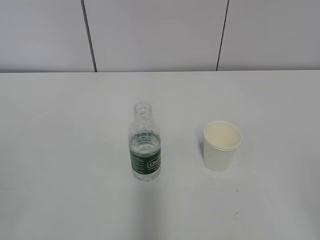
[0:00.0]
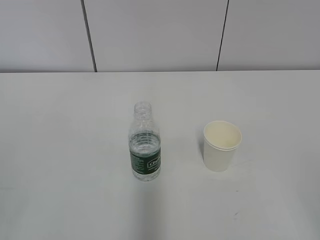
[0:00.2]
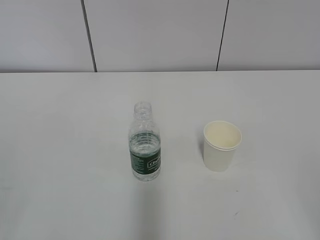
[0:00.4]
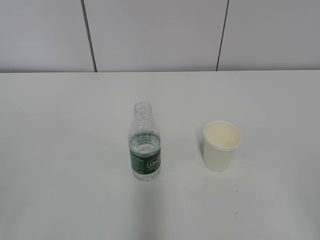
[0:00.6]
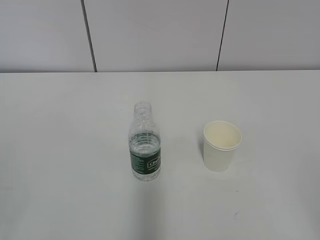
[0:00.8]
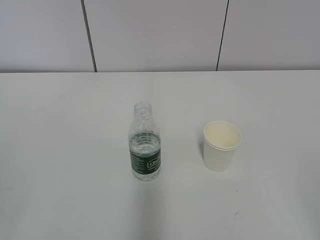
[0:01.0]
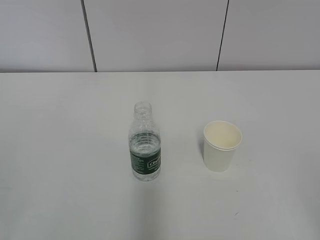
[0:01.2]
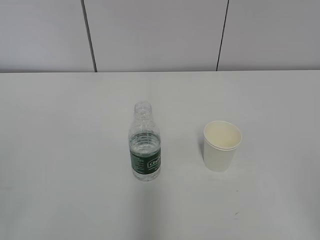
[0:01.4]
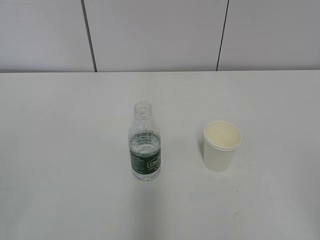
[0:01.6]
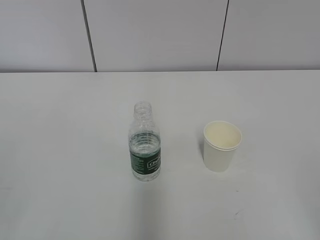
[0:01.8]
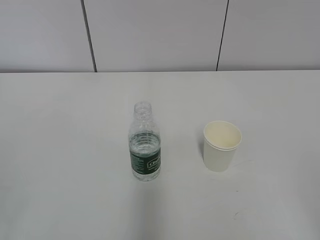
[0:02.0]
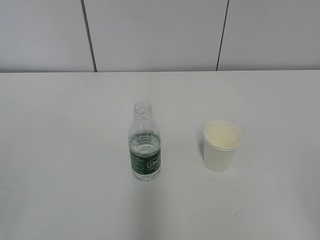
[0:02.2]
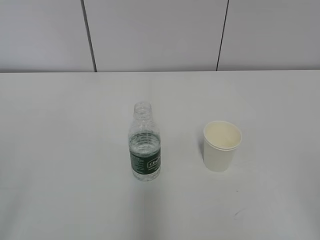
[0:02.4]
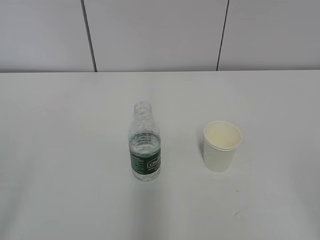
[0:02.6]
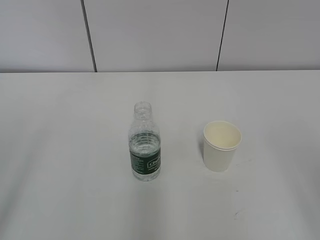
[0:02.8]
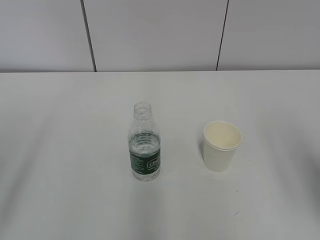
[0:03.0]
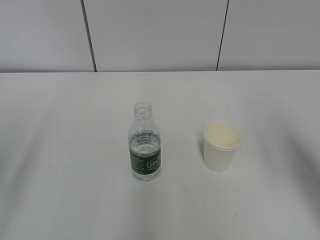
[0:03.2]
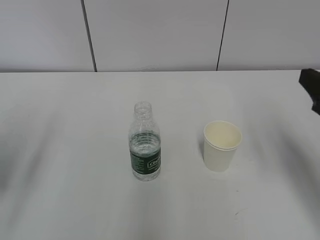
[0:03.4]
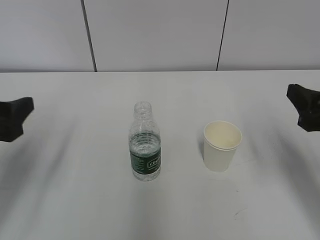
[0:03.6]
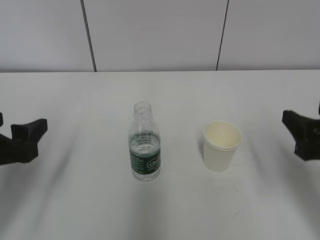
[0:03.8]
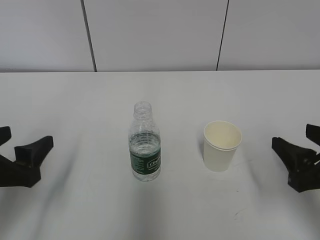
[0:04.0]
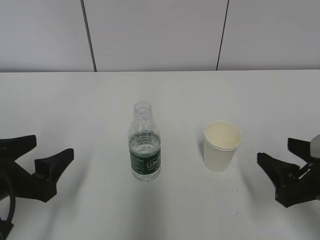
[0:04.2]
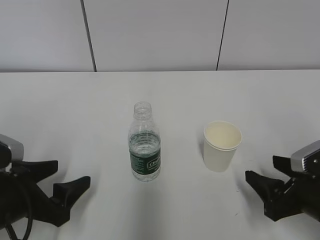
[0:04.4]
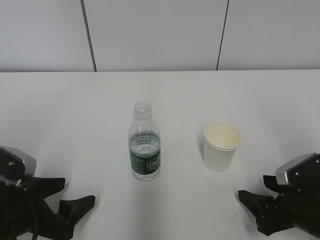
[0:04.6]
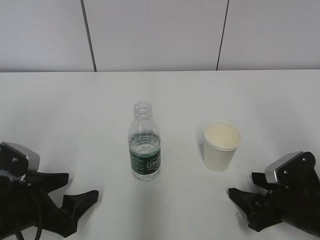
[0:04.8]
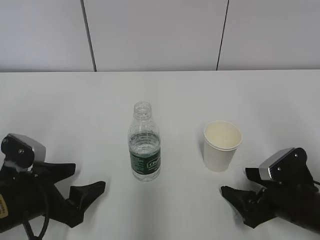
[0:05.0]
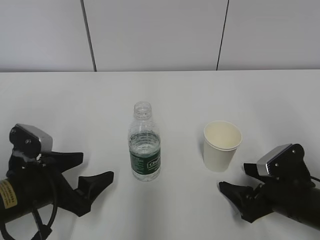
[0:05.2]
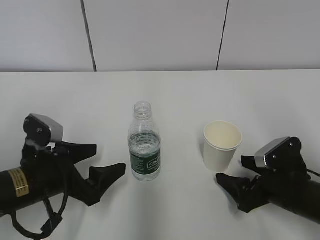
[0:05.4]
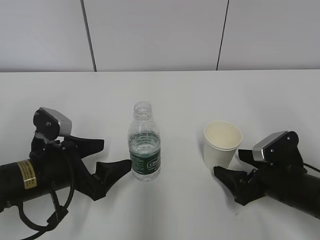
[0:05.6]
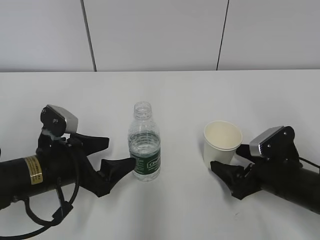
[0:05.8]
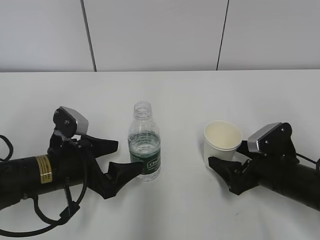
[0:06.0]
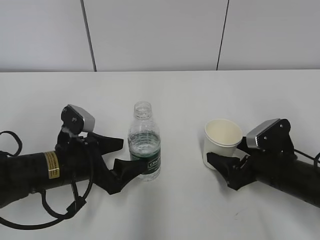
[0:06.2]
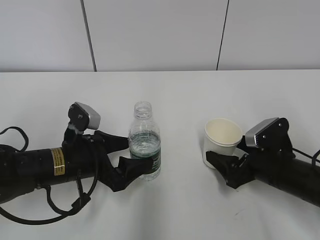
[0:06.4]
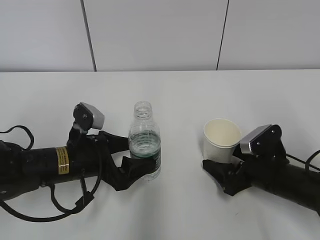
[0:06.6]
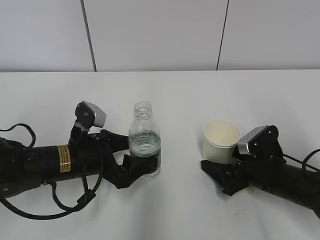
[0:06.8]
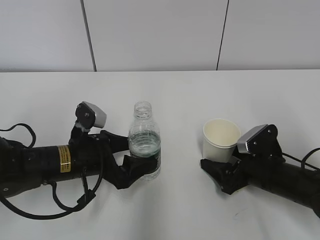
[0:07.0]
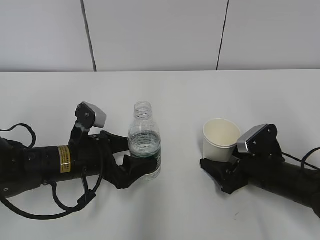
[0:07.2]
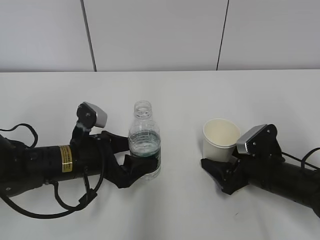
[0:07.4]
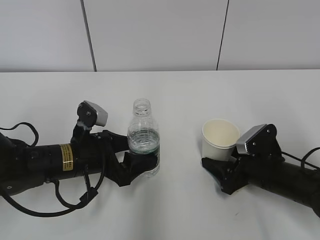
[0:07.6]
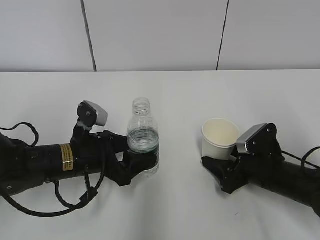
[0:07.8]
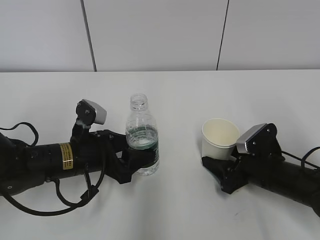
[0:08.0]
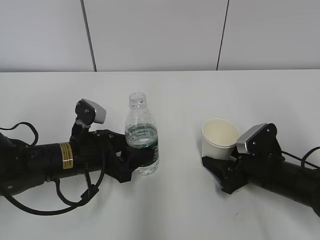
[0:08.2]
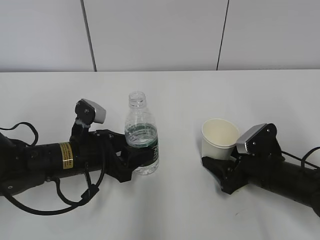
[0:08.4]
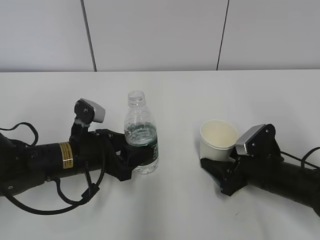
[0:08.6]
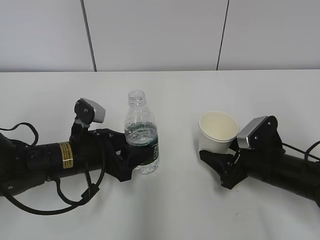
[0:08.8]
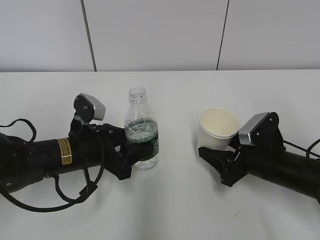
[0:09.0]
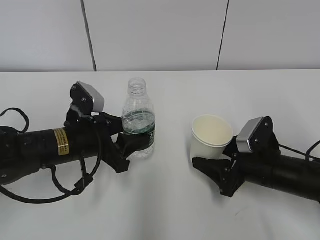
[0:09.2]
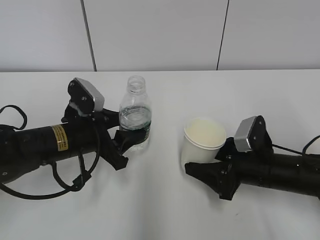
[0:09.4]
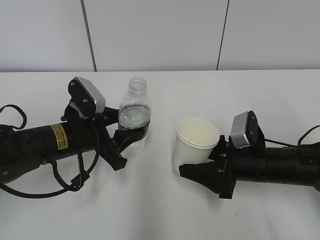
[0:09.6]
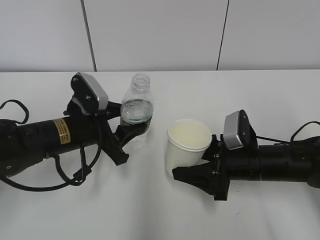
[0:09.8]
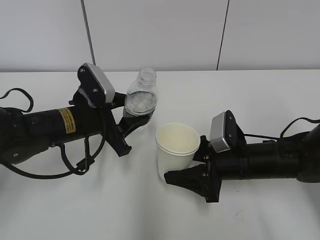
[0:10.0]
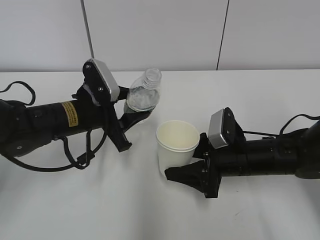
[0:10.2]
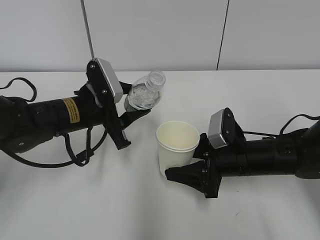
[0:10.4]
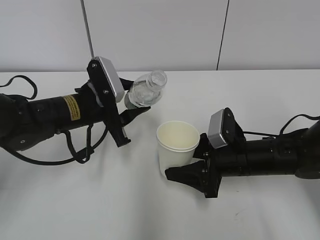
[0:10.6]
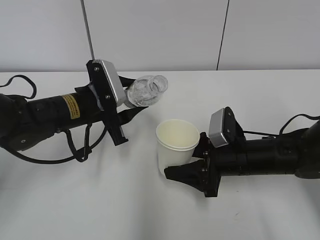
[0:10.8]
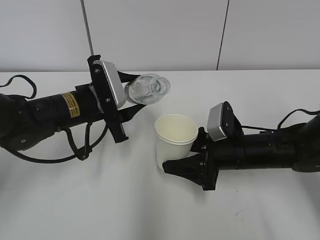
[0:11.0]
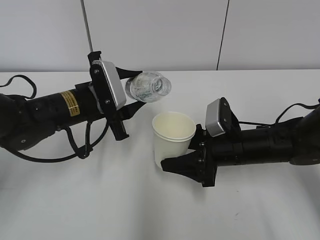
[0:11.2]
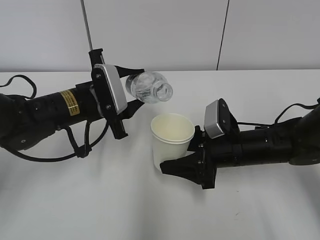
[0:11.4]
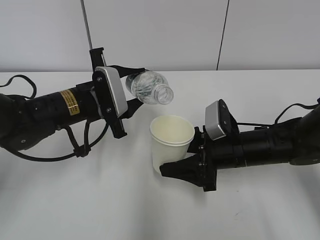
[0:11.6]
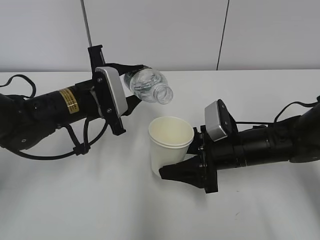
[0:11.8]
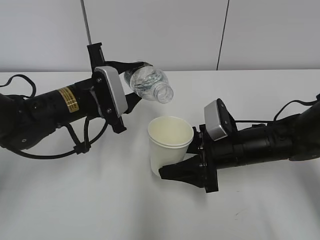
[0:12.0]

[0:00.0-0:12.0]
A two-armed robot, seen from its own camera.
Step, 0:00.0 to 0:06.2: Grab the paper cup with the right hand.
Step, 0:06.4 to 0:06.8: Grab the water bottle with the left hand.
Step, 0:07.0 to 0:10.8: Lift the paper cup with the right hand.
0:01.6 to 0:03.0: The right gripper is displaced forward by some 15 cm.
0:03.0 to 0:04.4: The right gripper goes about 20 cm downward. Meanwhile the left gripper shifts some 20 cm downward, forward and to the right.
0:04.4 to 0:06.0: The right gripper moves forward, approximately 10 cm, and opens its fingers; the left gripper moves forward and to the right, some 10 cm.
0:06.0 to 0:07.6: The right gripper closes.
0:07.6 to 0:09.0: The left gripper closes its fingers.
0:09.0 to 0:10.4: The left gripper ends up approximately 5 cm from where it was; the right gripper shifts by approximately 5 cm.

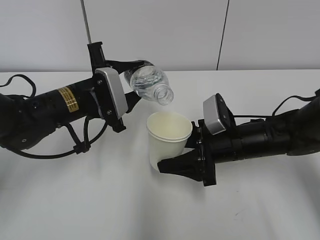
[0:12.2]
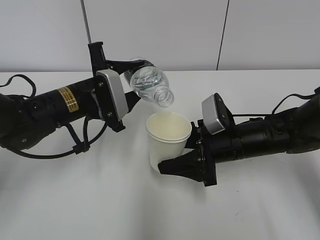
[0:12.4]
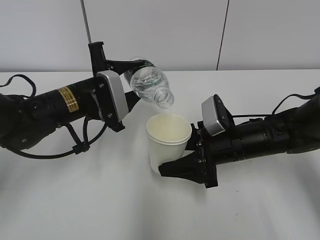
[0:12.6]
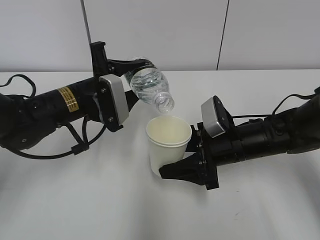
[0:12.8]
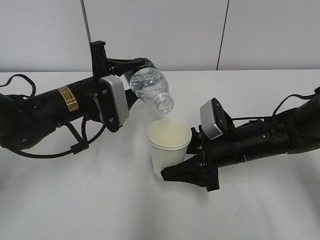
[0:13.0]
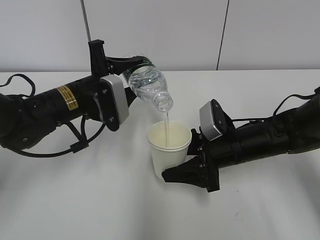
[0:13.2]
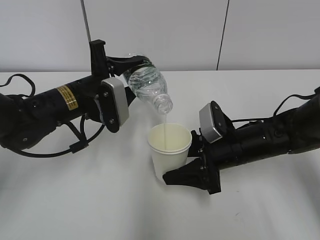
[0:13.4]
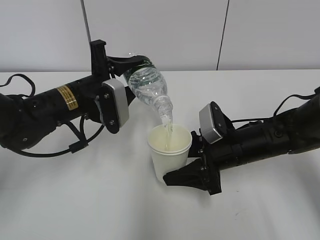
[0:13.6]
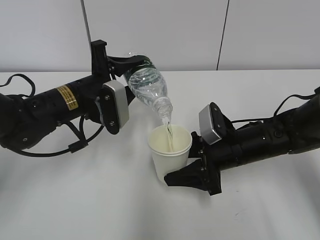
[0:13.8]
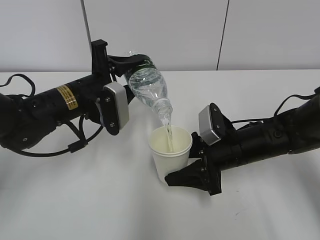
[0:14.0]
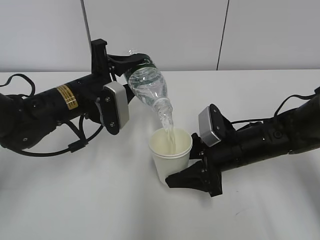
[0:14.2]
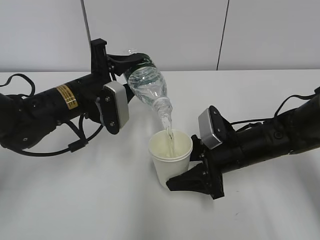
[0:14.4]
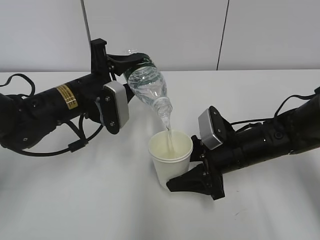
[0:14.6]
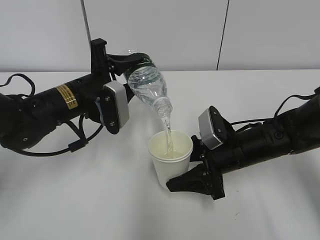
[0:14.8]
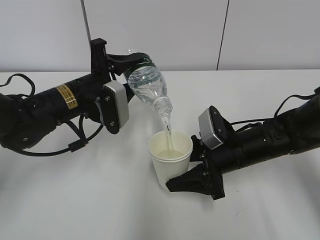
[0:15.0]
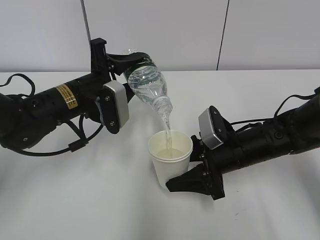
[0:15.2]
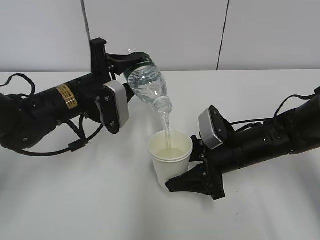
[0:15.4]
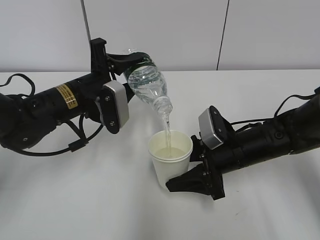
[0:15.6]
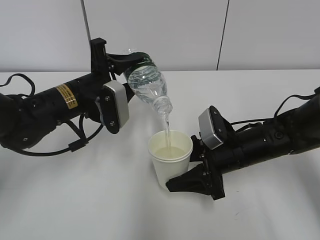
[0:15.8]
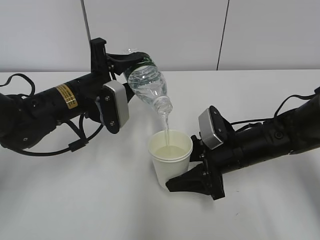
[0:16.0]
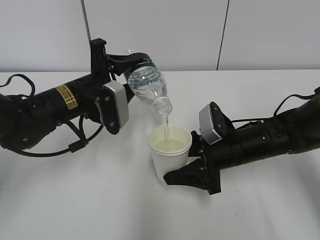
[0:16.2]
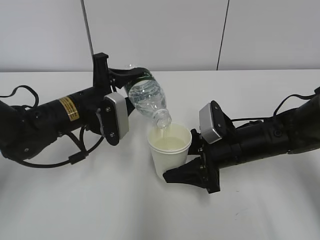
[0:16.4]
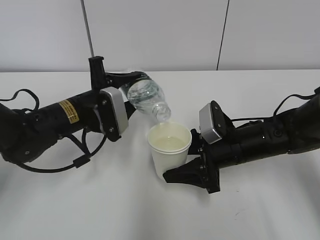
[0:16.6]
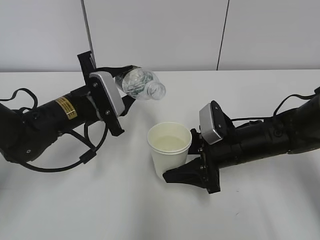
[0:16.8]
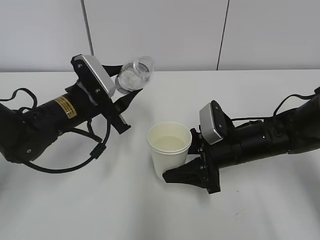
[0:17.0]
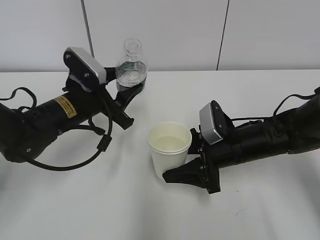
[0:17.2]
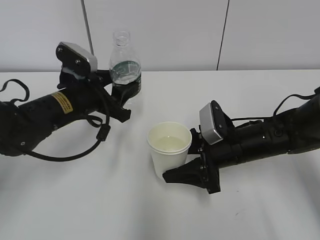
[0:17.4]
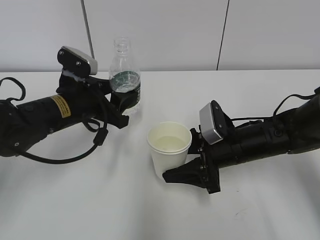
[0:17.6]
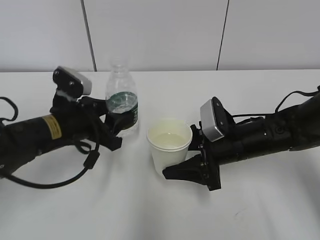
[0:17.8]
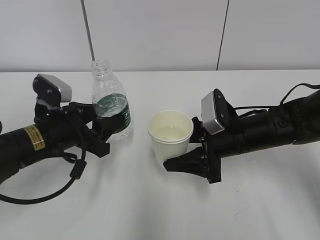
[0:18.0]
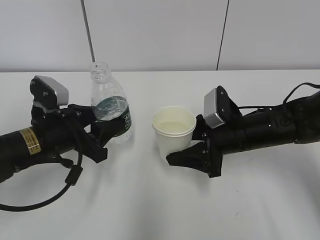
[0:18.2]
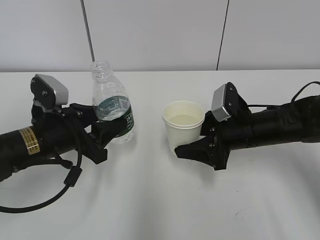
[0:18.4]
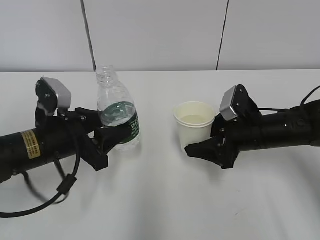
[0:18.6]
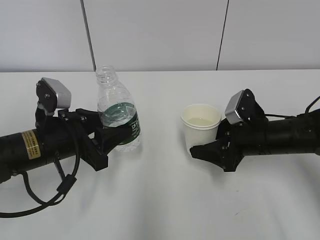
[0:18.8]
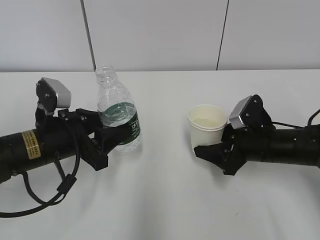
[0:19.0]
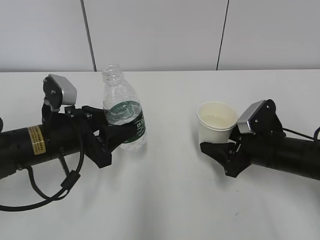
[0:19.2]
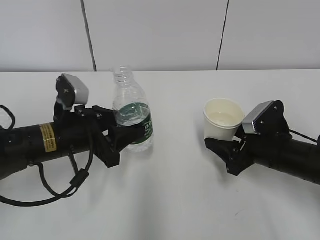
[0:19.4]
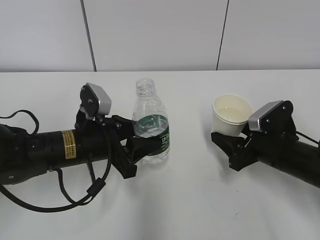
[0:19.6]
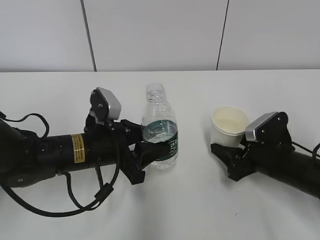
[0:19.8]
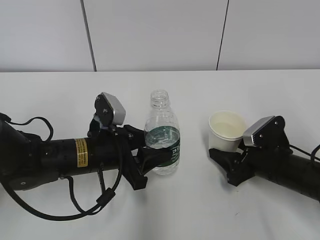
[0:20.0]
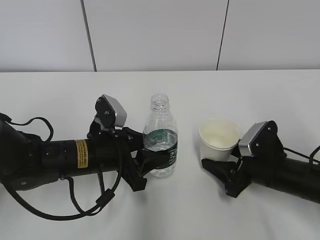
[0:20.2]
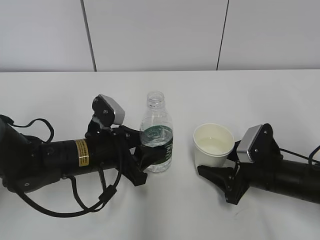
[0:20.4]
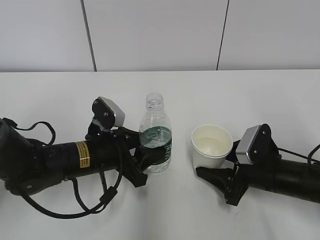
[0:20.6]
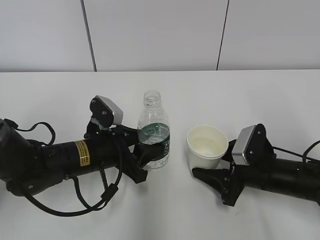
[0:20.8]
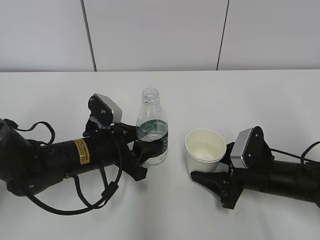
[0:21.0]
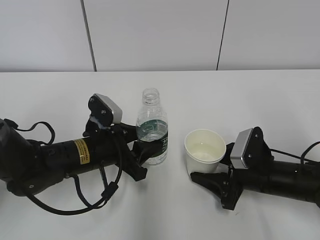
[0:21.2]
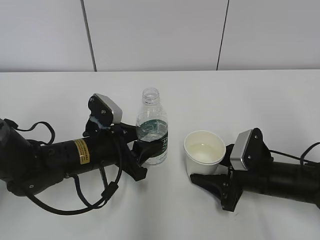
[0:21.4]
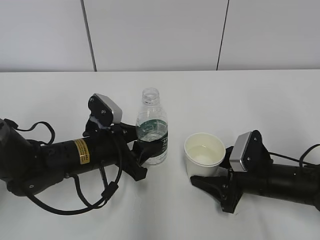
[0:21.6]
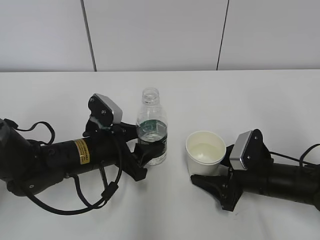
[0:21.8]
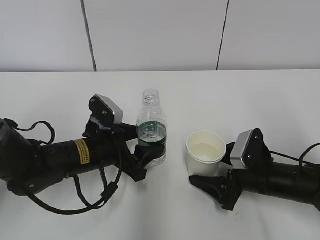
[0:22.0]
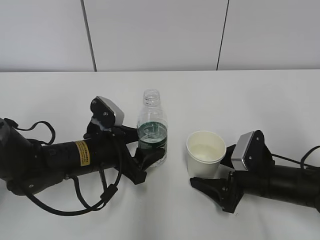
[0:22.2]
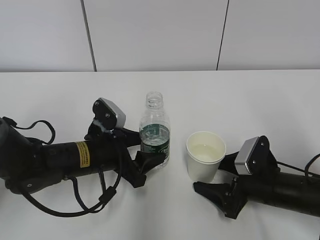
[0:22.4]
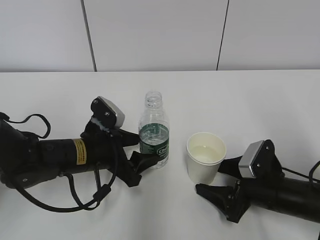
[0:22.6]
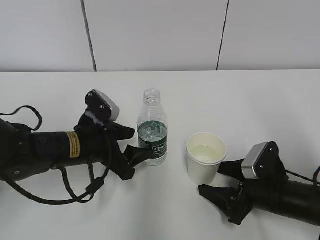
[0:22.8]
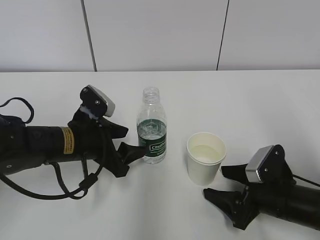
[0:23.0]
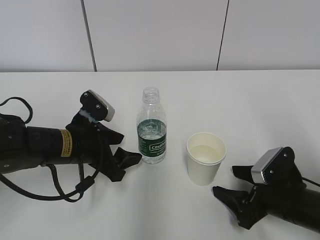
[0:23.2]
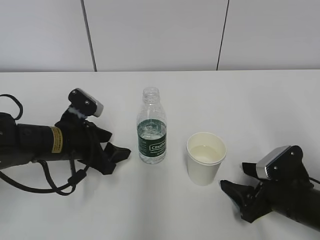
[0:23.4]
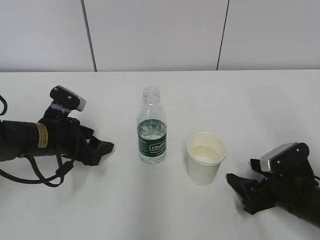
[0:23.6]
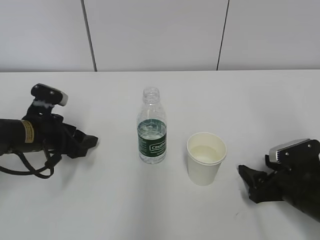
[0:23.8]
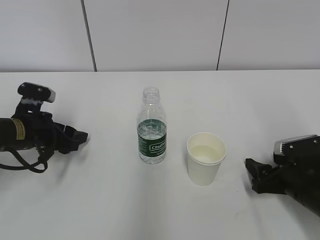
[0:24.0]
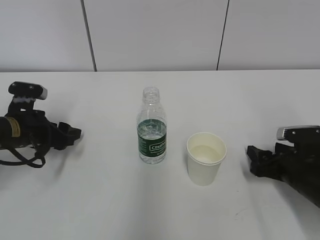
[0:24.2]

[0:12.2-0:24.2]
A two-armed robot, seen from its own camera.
Step, 0:12.2 to 0:13.8: Fill water with the right hand.
Step, 0:12.2 to 0:13.8: Pour water with the left hand.
Step, 0:14.0 to 0:14.4: Collect water with the left hand.
Step, 0:14.6 to 0:18.0: Place the paper cup with the right hand.
Step, 0:18.2 to 0:19.0: Place the water bottle with the left hand.
0:12.2 to 0:13.8: The grippers make only small movements.
0:13.8 to 0:15.2: Both grippers stay put.
0:15.2 to 0:16.6: The grippers move only a little.
0:16.6 to 0:18.2: The left gripper heads backward, covering approximately 5 cm.
0:18.2 to 0:19.8: The right gripper shifts roughly 10 cm to the right and downward; the left gripper is displaced to the right by about 5 cm.
0:21.2 to 0:22.6: The left gripper opens up. The right gripper opens.
0:22.6 to 0:24.2: The right gripper goes some 5 cm to the right; the left gripper travels to the left by approximately 15 cm.
